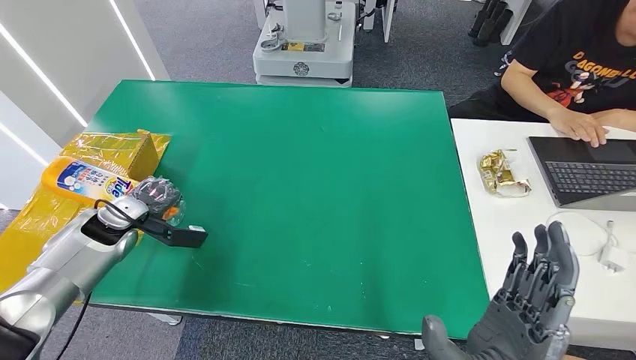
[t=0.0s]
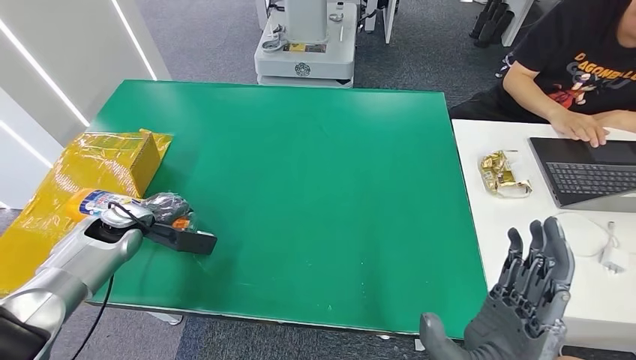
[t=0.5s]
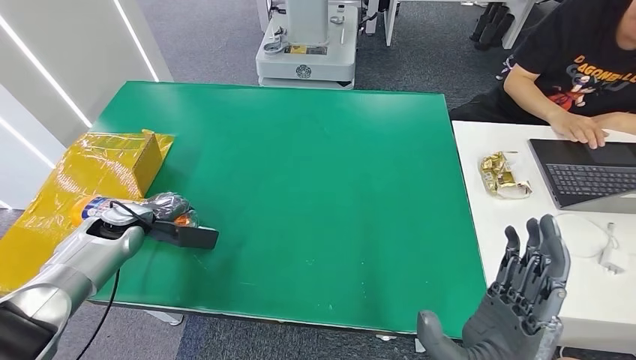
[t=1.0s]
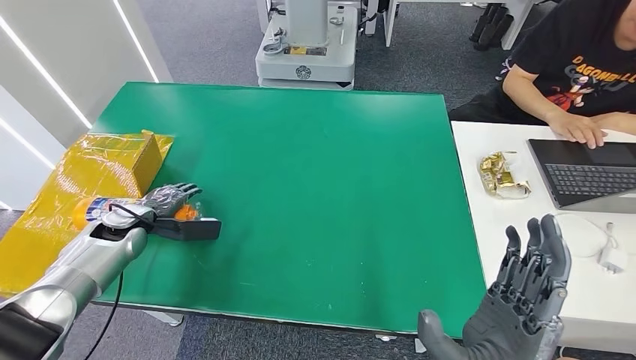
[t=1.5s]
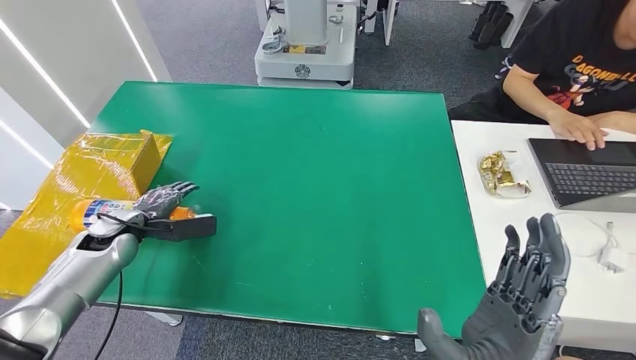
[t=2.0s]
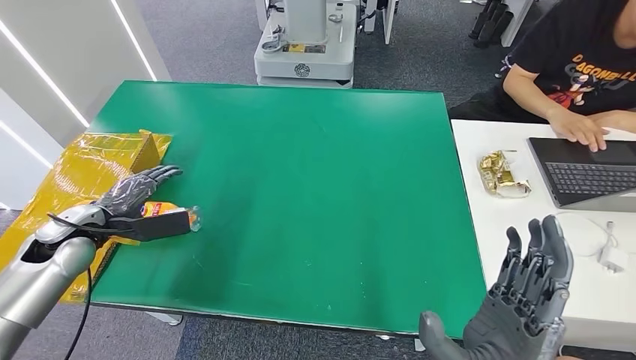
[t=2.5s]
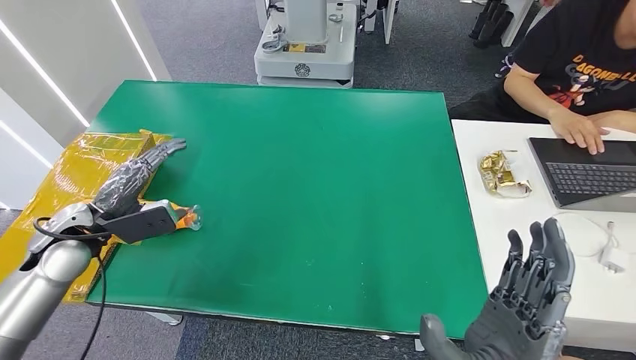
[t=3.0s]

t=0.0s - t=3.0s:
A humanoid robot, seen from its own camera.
Step, t=0.0s - t=3.0s: Turn the bottle to the front side.
t=1.5s - t=3.0s: The left hand is displaced upward and backward by approximately 10 cm.
